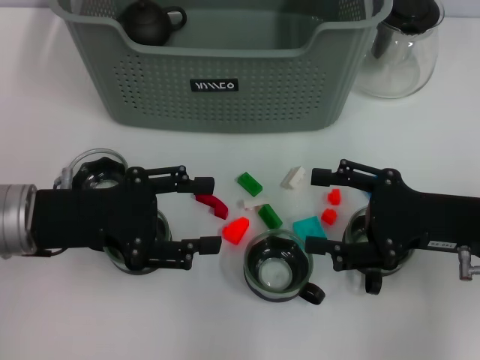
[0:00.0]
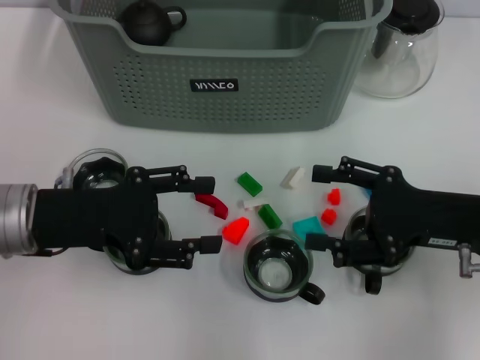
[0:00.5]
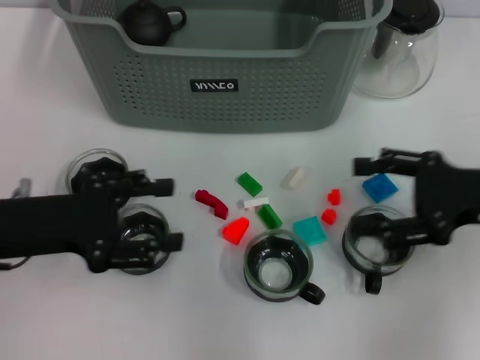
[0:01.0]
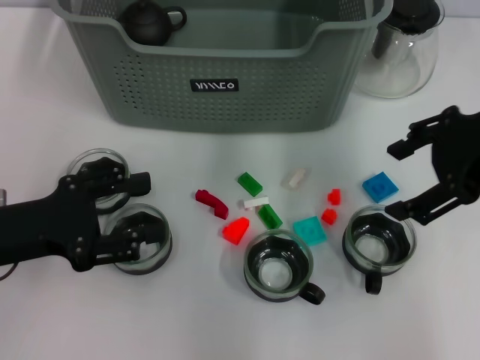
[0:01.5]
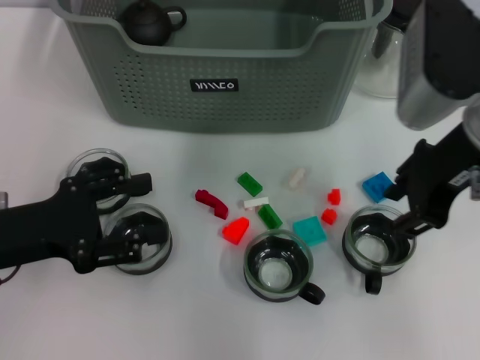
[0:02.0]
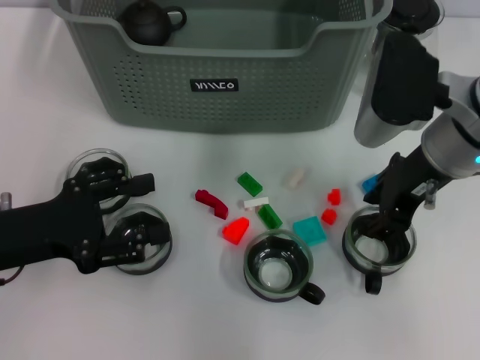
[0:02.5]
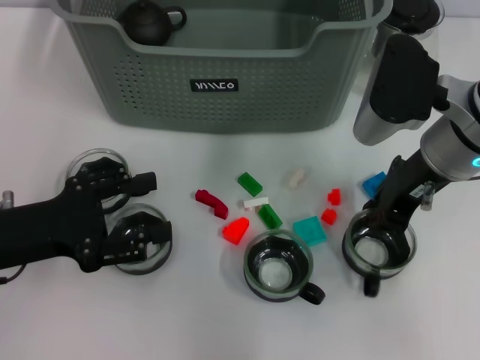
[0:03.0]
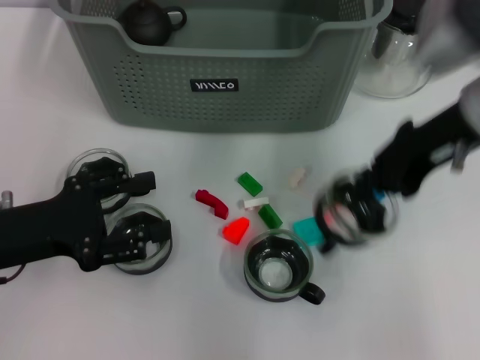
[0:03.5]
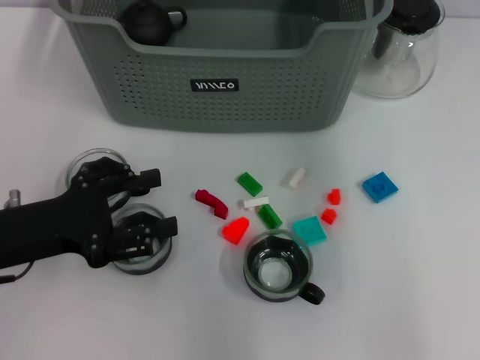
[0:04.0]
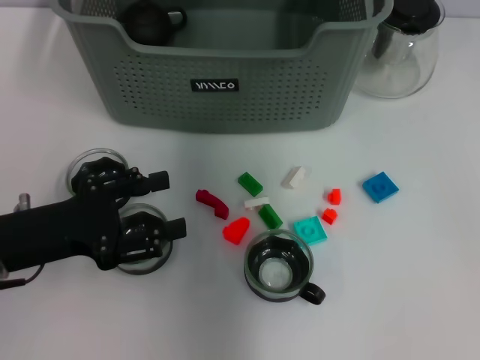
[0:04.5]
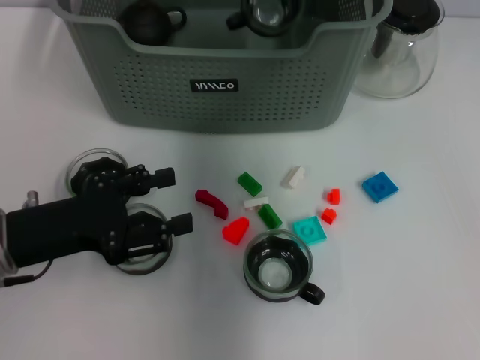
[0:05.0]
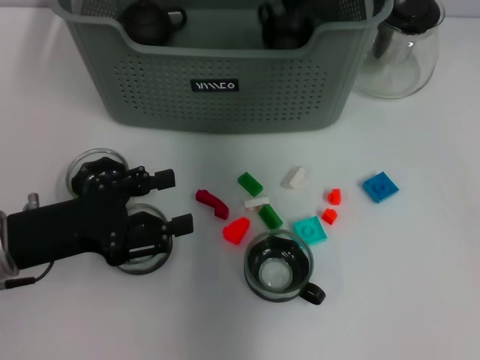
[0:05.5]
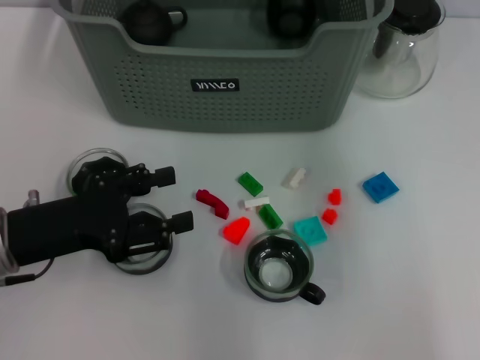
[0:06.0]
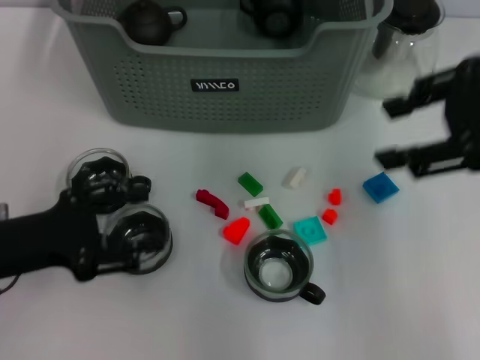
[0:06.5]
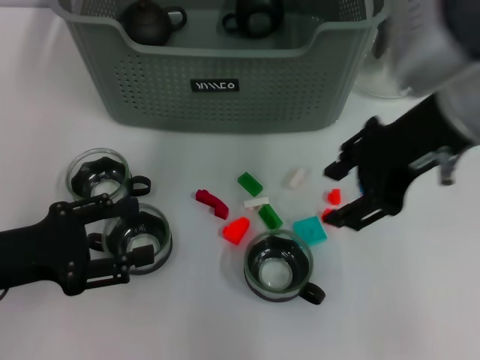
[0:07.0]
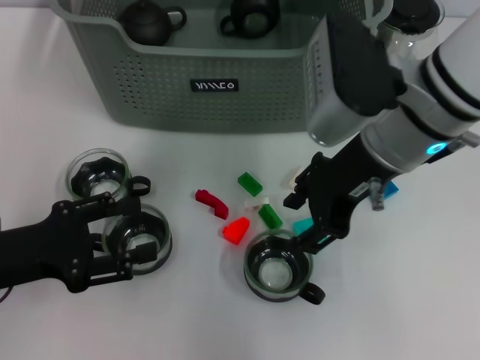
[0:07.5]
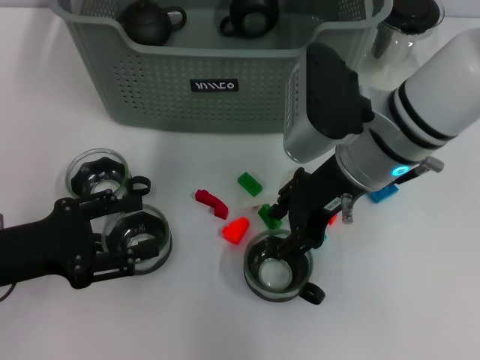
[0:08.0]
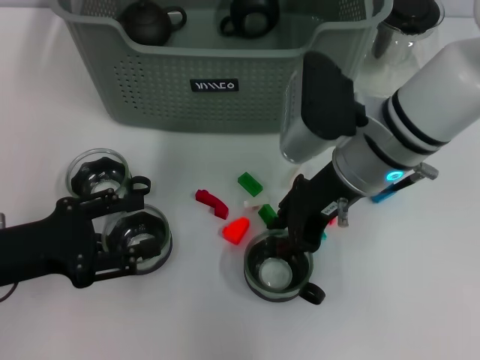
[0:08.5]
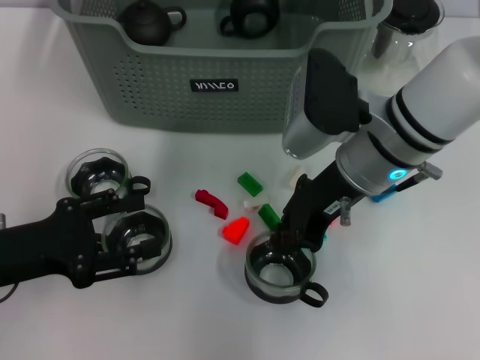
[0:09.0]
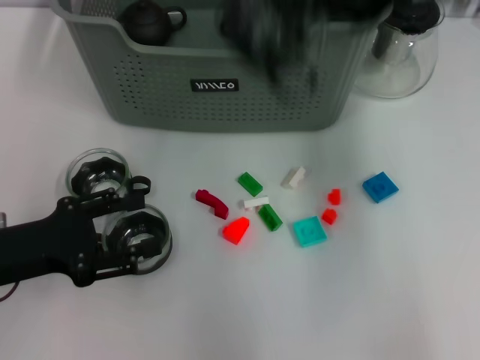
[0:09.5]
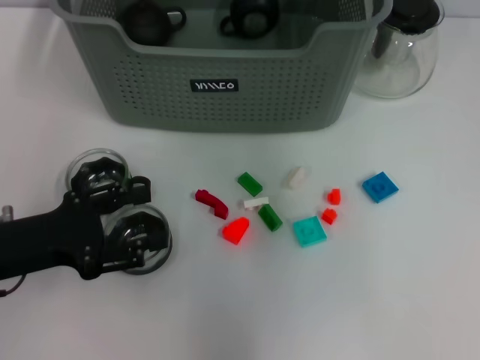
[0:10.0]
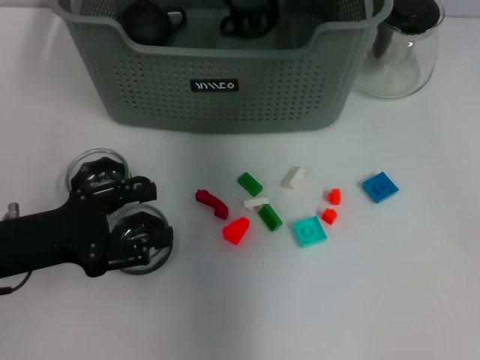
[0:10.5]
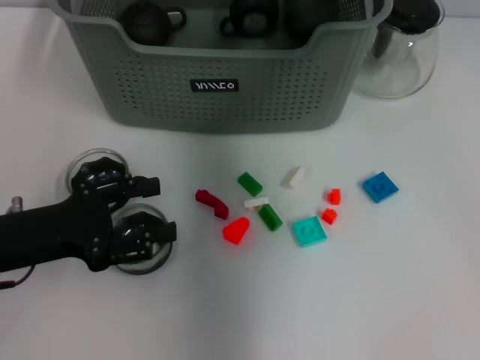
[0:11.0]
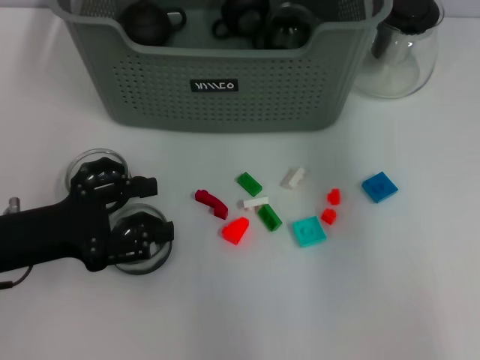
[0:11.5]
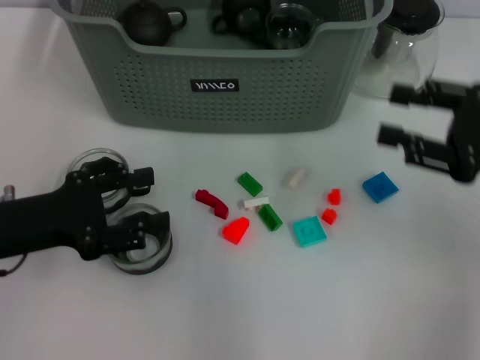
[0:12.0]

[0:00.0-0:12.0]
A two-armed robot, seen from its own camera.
Task of the whole recording: pick up the teacup on the table and place it into the storage bin, pick up the block on the table and place it into the storage bin.
Step, 0:00.0 to 0:03.0: Grasp the cup with right gripper.
Step, 0:03.5 to 0:05.0: Place the cup in the storage box with right gripper.
Step, 0:05.5 to 0:08.5: Grasp the cup with right gripper.
Step, 0:09.5 to 0:10.5: Place the cup in the storage box with right gripper.
0:00.0 to 0:02.0: The right gripper goes approximately 15 cm upward, to the left and forward. Meanwhile the left gripper moves some 5 cm.
0:02.0 to 0:04.0: The right gripper moves upward and forward, roughly 10 cm, and closes its fingers.
0:04.0 to 0:06.0: The right gripper reaches approximately 15 cm to the left, then returns, and opens its fingers.
0:06.0 to 0:08.0: The right gripper shifts some 20 cm downward and to the left.
0:08.0 to 0:10.0: The right gripper goes approximately 20 cm upward and forward, and closes its fingers.
0:10.0 to 0:12.0: The right gripper goes roughly 30 cm to the right, backward and downward, and opens up.

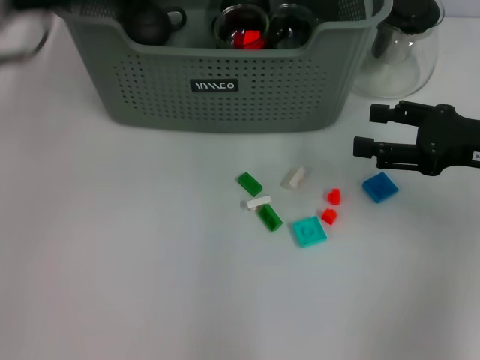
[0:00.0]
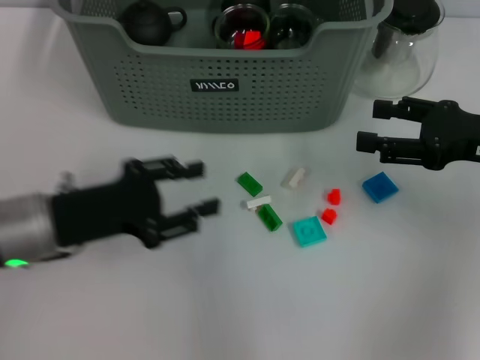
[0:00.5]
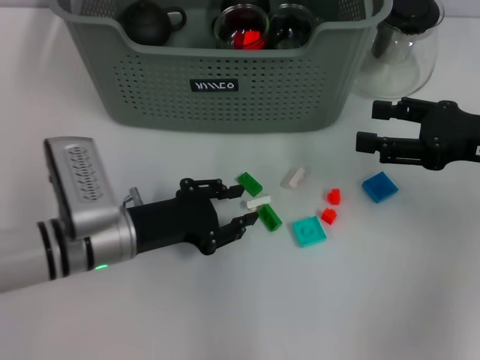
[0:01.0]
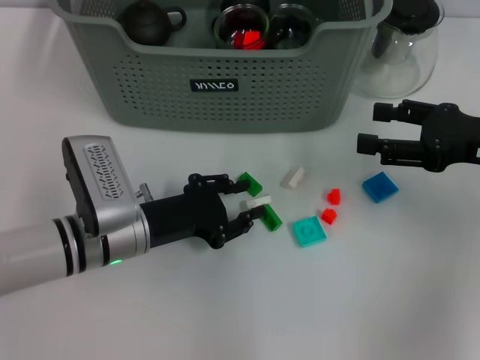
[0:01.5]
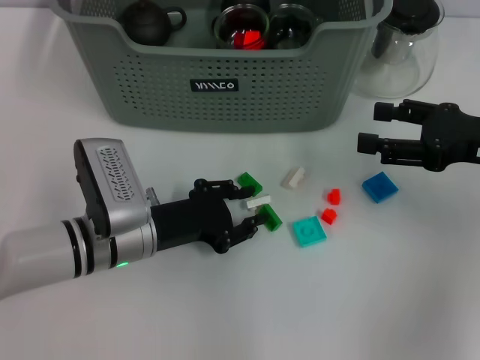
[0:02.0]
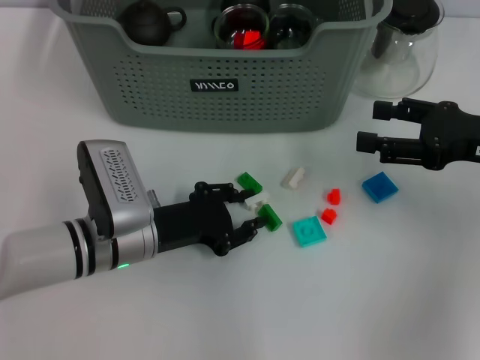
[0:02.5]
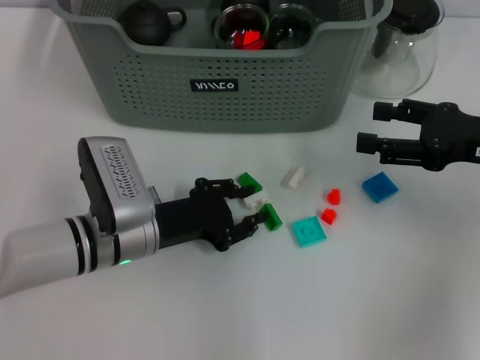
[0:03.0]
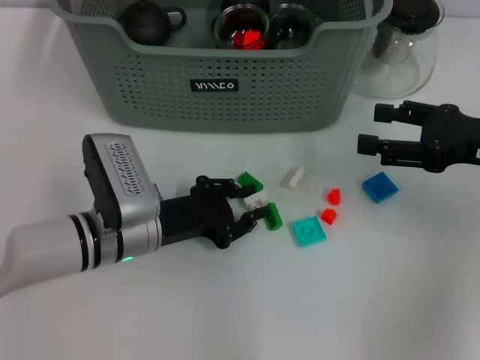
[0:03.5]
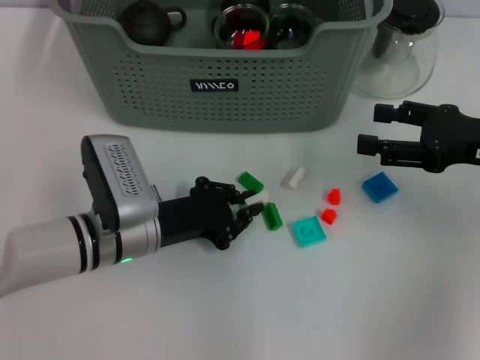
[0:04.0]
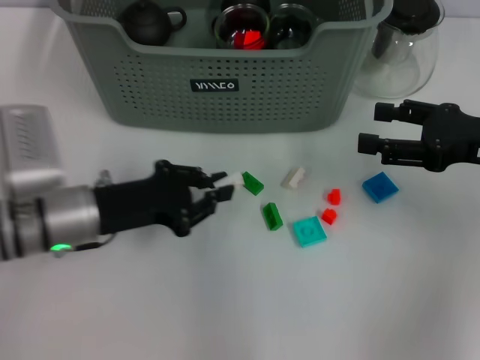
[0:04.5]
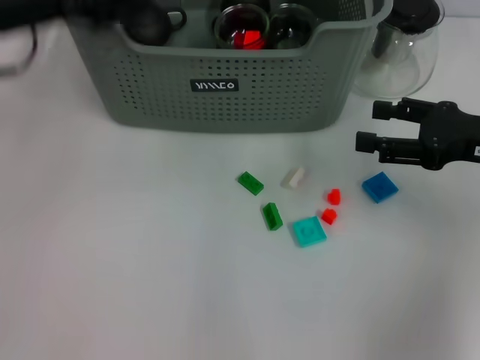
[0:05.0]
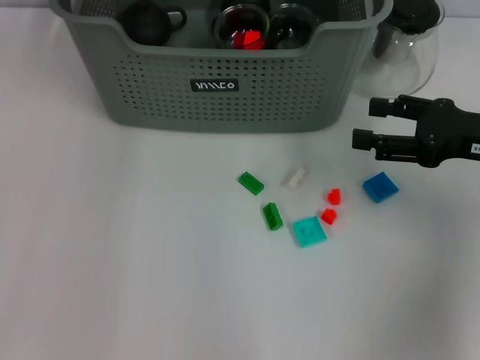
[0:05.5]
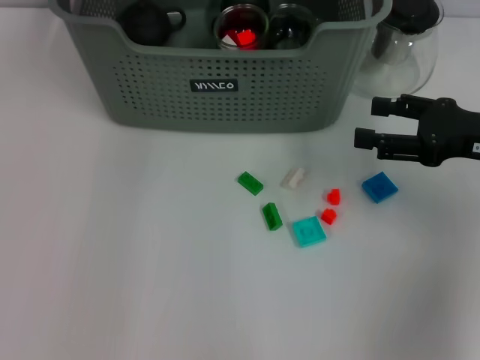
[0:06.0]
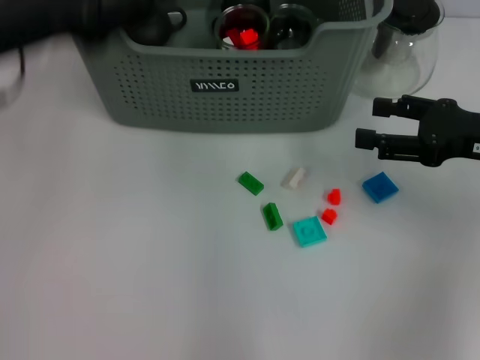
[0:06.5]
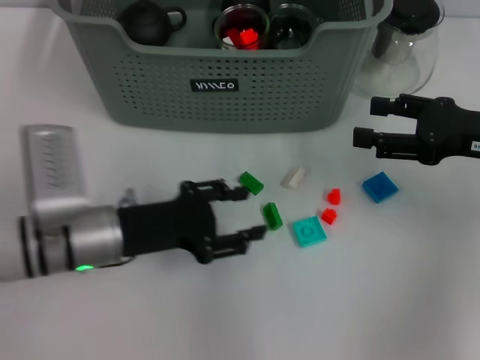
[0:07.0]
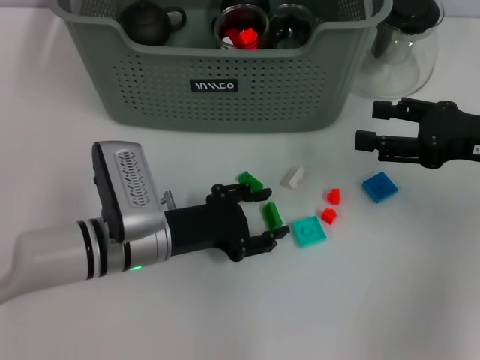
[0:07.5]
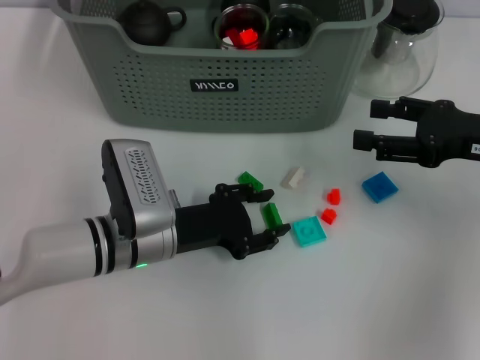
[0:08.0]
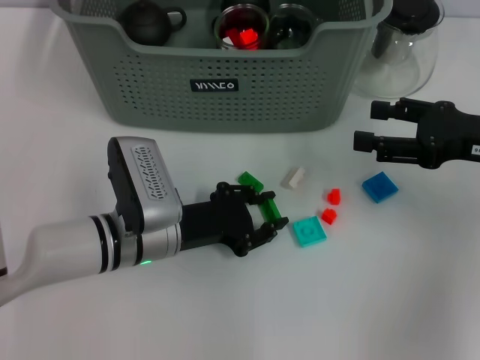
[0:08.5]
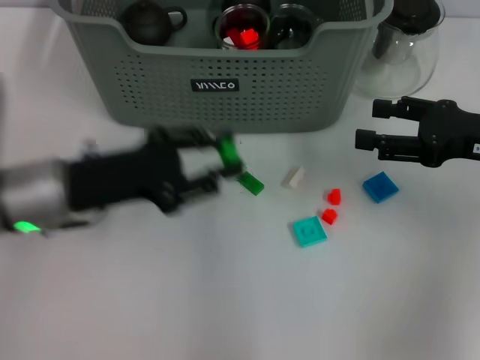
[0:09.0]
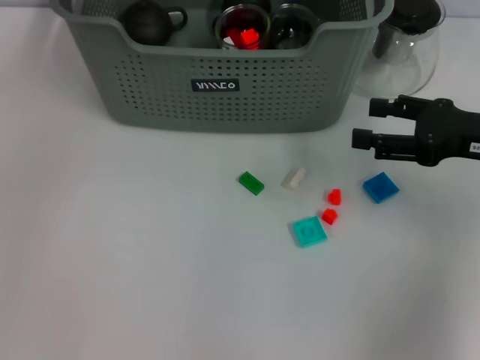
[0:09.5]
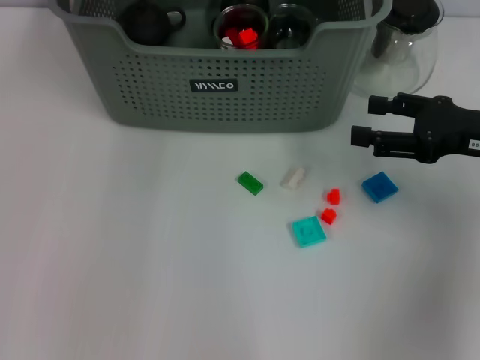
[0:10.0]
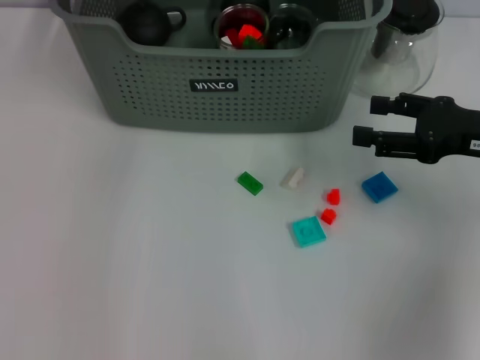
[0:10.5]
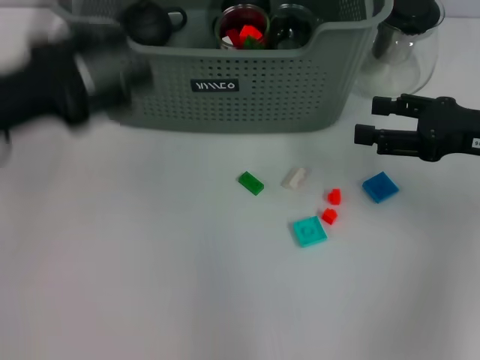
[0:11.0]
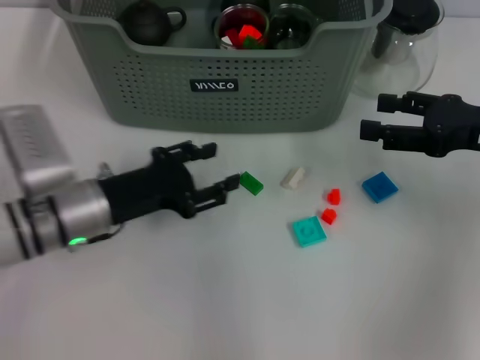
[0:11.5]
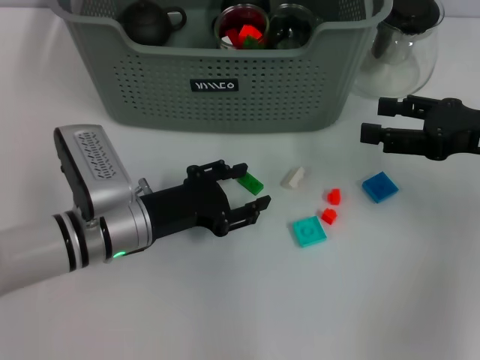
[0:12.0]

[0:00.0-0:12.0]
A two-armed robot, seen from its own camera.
Task of the whole recording: pick up the teacup on the table and place it into the storage bin, pick up the block on the table and place it into the storage bin.
Step, 0:00.0 to 0:03.5: Grasp the white block with left gripper.
Step, 0:04.0 to 0:05.5: Place the white block in the storage box with left gripper.
Step, 0:06.0 to 0:08.0: Grasp the green block with left gripper.
Step, 0:09.0 to 0:10.0: Place the green block in the storage box with left gripper.
0:00.0 to 0:02.0: The left gripper goes approximately 20 cm downward.
0:02.0 to 0:04.0: Neither gripper changes place.
0:04.0 to 0:06.0: The left gripper goes about 30 cm upward and forward.
0:06.0 to 0:08.0: The left gripper heads downward and backward, covering approximately 30 cm.
0:08.0 to 0:10.0: The left gripper is displaced upward and forward by some 30 cm.
0:10.0 to 0:12.0: The left gripper is displaced downward and backward by about 30 cm.

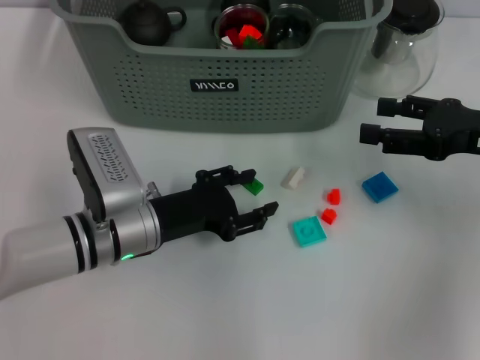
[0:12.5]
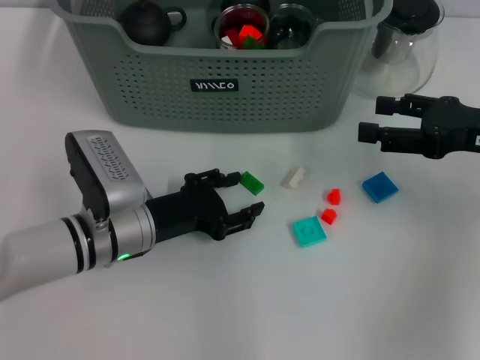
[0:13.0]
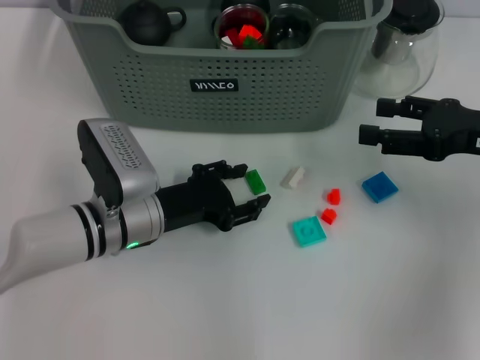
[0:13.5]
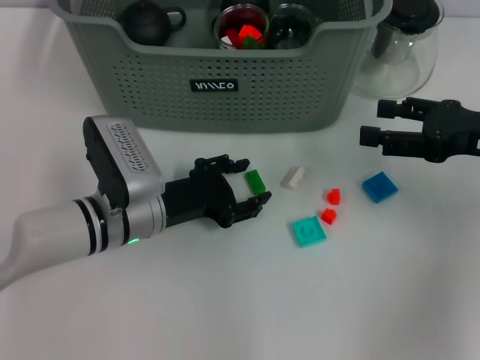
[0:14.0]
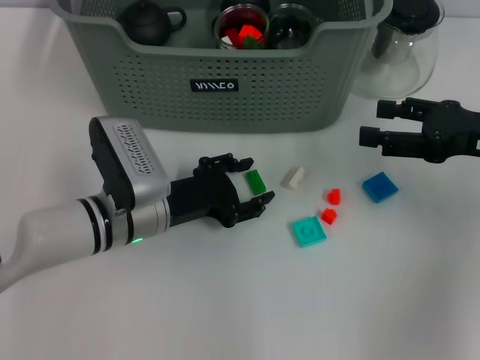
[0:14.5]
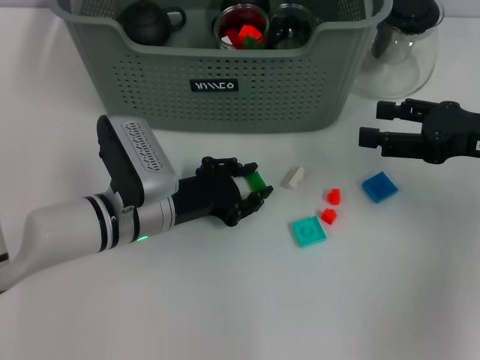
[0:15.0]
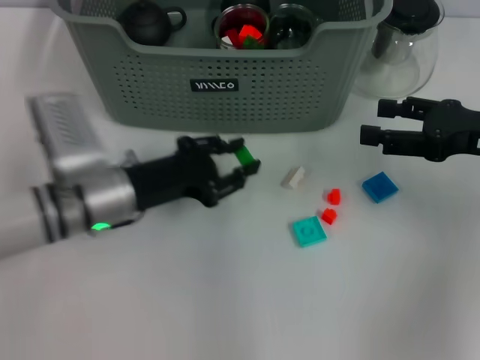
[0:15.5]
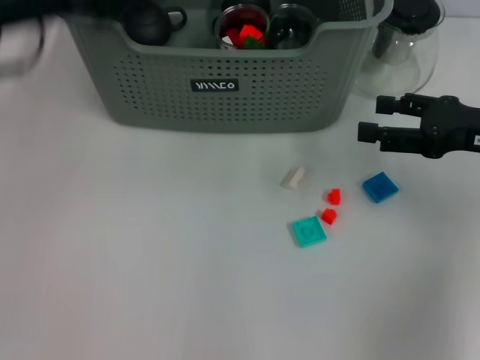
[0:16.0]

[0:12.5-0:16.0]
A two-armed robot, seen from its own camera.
Task of the whole recording: pick up the teacup on the table and place it into the storage bin, pick up the block on the table and place it into the storage bin.
Step, 0:12.5 to 0:15.0: Grasp the green block with left gripper.
0:12.5 to 0:14.5: There are only small adjustments of the grippers.
0:14.5 to 0:16.0: The left gripper shifts approximately 25 cm upward and to the left.
